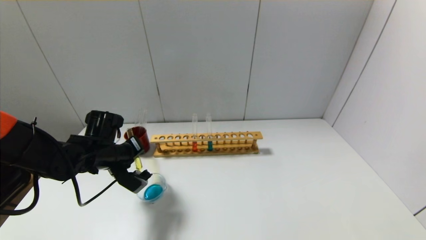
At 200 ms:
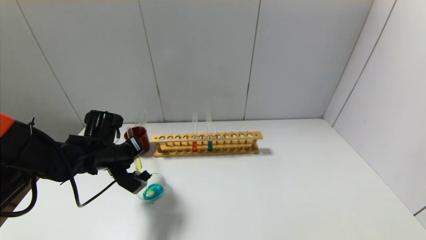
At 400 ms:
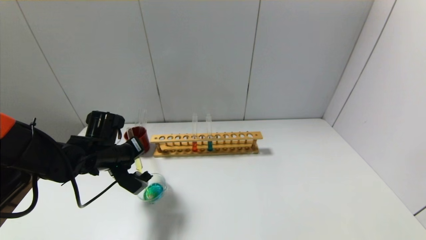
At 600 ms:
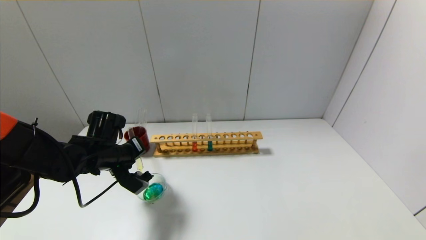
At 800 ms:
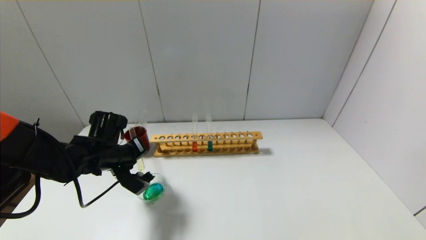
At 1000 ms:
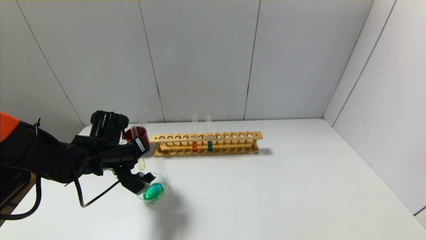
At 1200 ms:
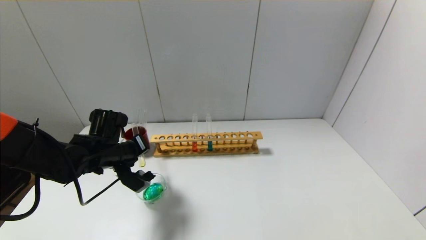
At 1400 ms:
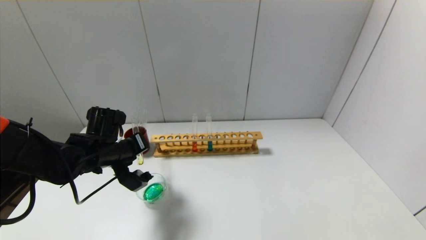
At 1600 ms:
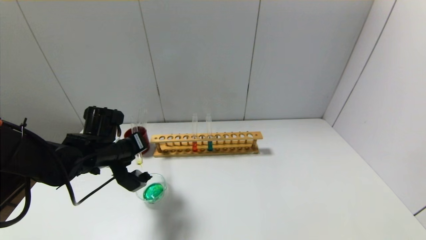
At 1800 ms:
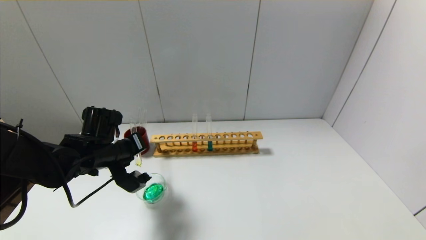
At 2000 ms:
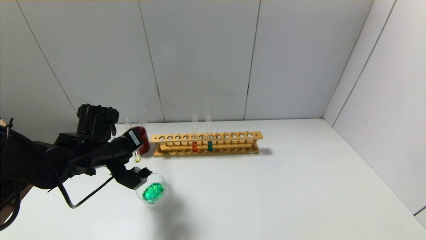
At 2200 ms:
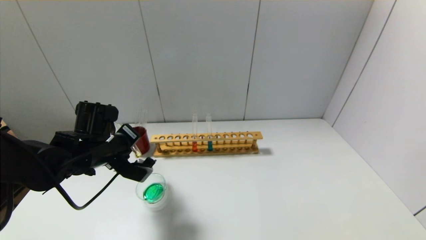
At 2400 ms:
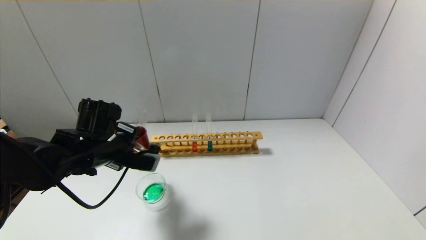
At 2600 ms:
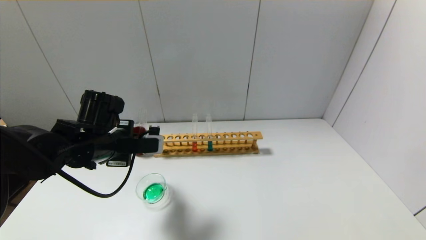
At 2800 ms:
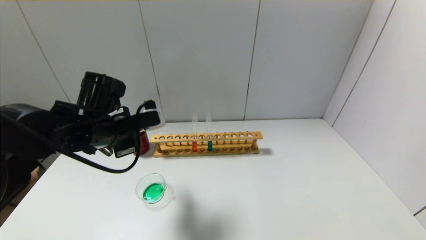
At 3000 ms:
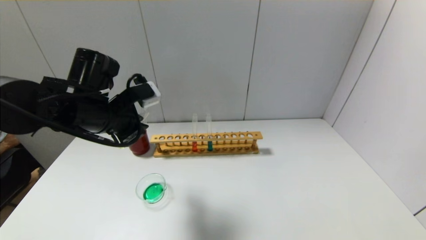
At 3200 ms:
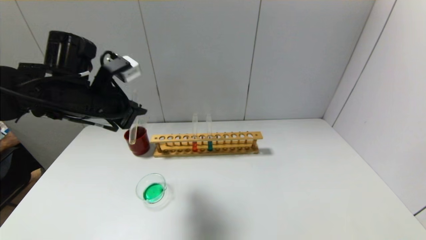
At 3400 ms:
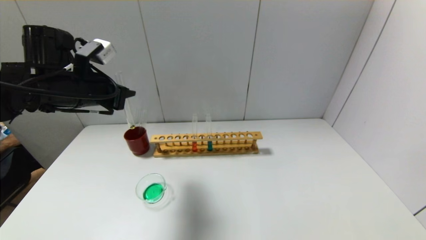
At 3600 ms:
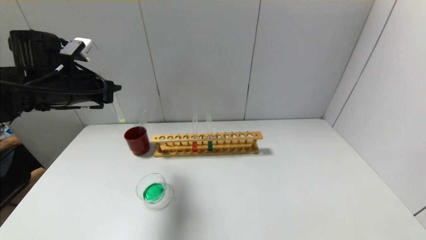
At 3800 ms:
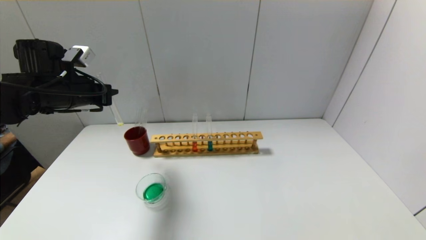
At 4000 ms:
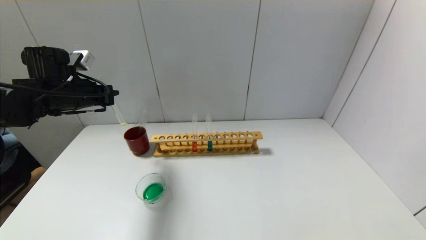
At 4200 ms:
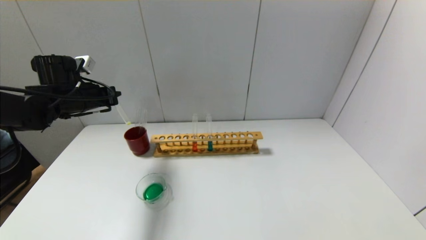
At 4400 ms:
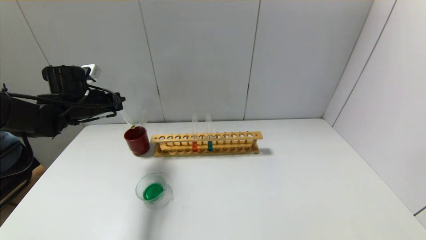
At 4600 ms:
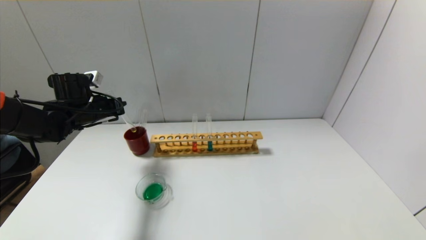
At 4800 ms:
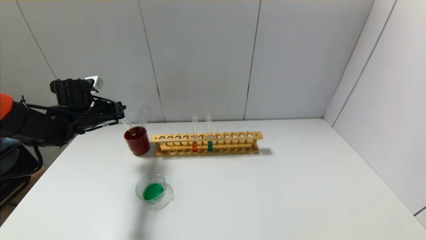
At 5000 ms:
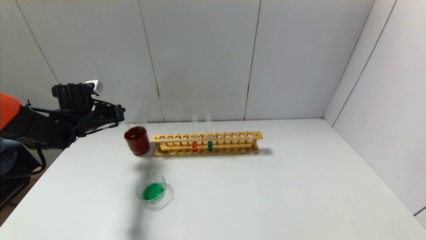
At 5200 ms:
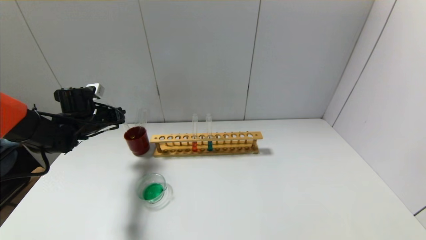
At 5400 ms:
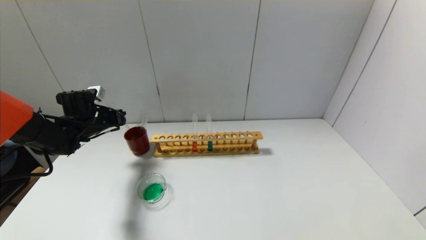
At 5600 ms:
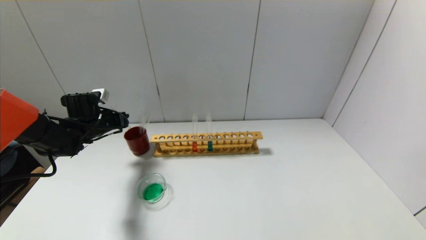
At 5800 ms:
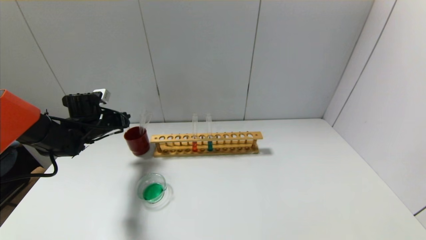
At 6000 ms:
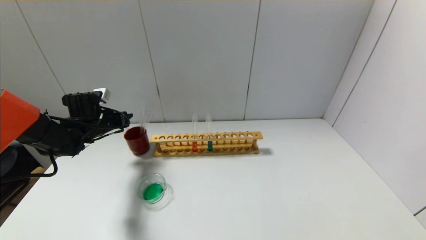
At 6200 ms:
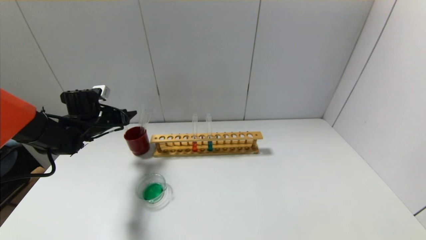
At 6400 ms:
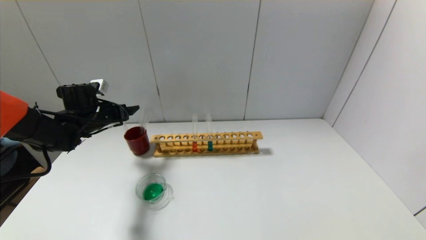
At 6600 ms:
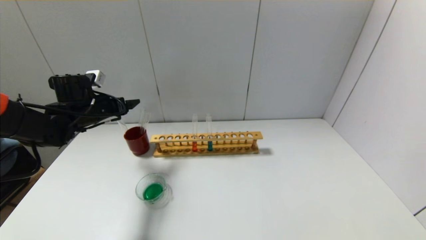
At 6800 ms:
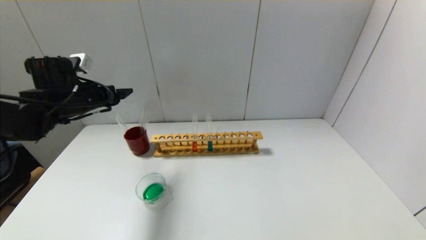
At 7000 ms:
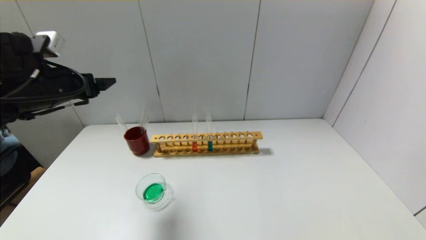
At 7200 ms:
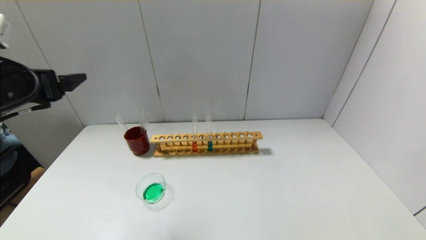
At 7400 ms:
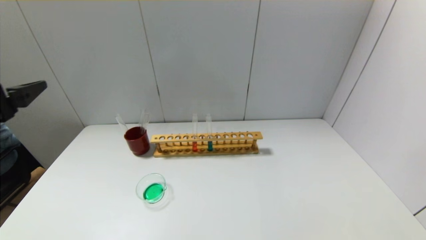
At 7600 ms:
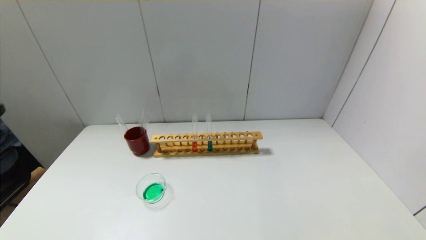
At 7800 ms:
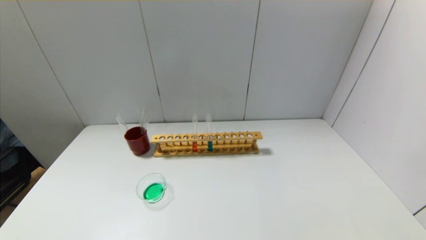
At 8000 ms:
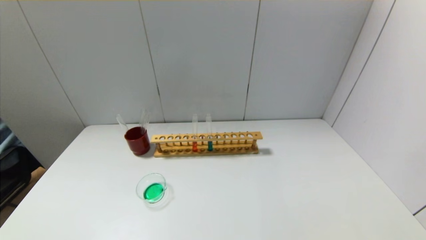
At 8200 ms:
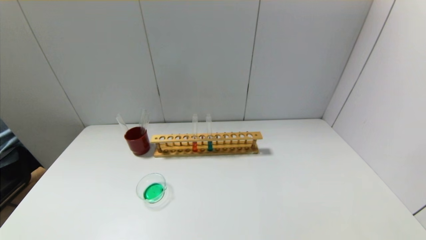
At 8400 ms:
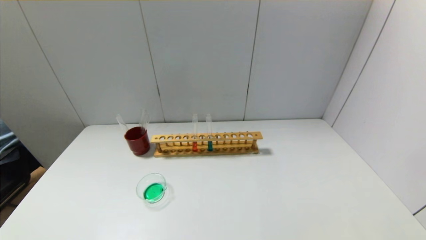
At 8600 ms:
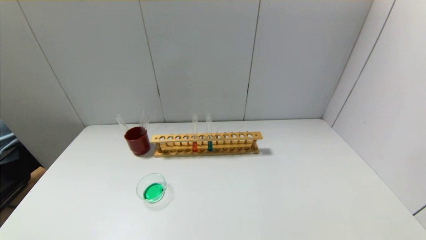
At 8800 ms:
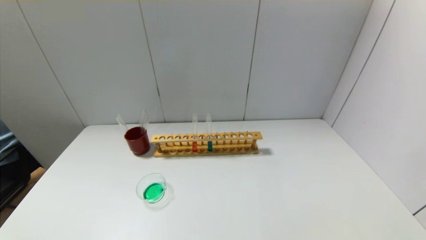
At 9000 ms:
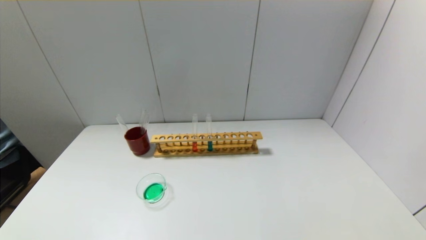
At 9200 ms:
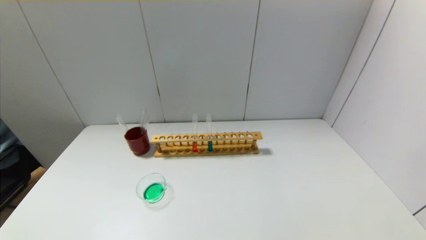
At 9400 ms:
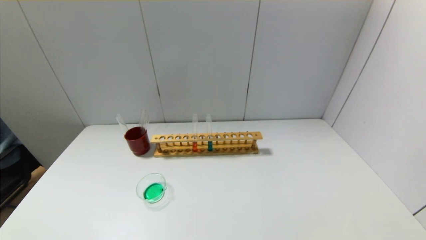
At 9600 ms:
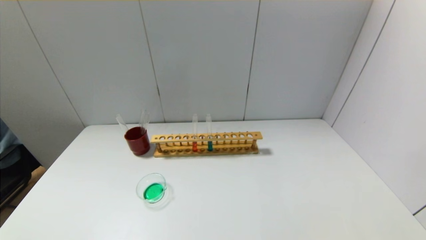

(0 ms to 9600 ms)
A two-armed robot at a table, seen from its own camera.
Step, 0 ms - 2400 ms: Pour the yellow reagent into the graduated cylinder with the left gripper.
Step, 2600 ms - 6000 ms: Place the test tube into the brown cup with the left gripper.
0 ms - 1600 ms: The grippers stay close to where they were, moving slightly.
1600 ms - 3200 ms: The left gripper goes roughly 15 cm upward.
3200 ms - 4800 ms: The left gripper is displaced forward, downward and to the left by roughly 15 cm.
4800 ms - 6400 ms: The left gripper opens.
6400 ms - 8000 ms: The left gripper moves backward, some 40 cm.
